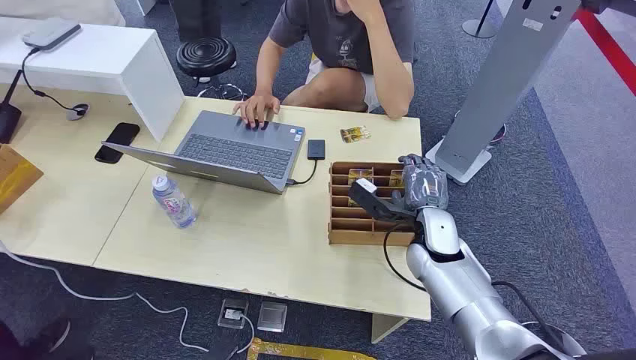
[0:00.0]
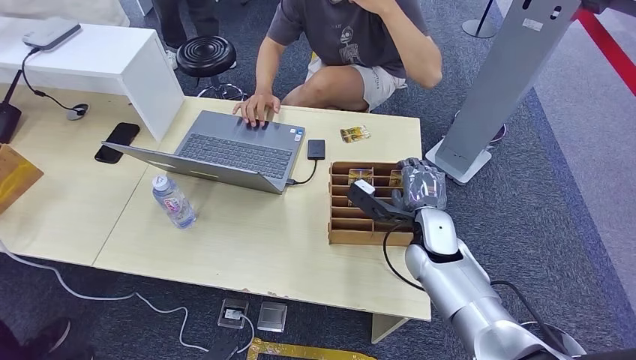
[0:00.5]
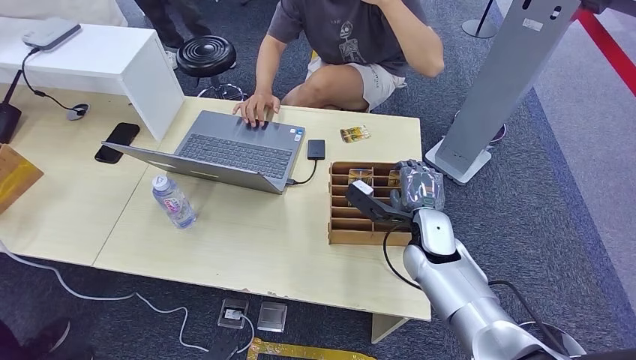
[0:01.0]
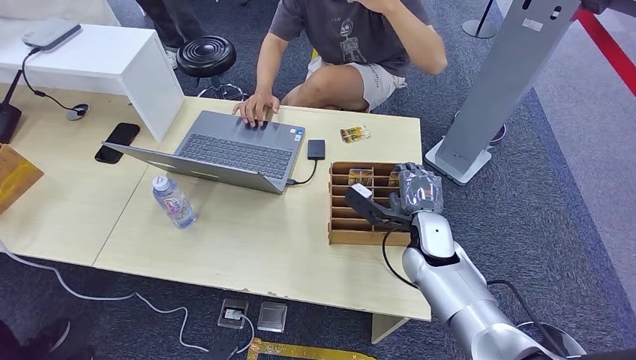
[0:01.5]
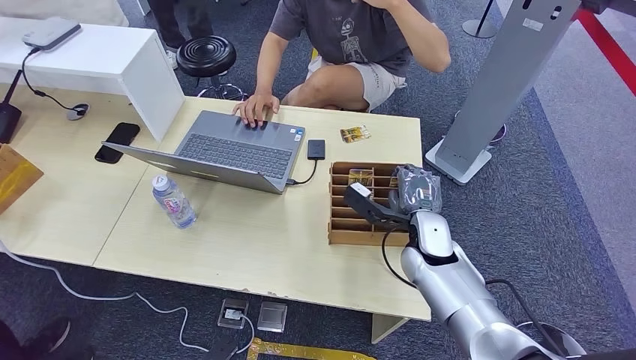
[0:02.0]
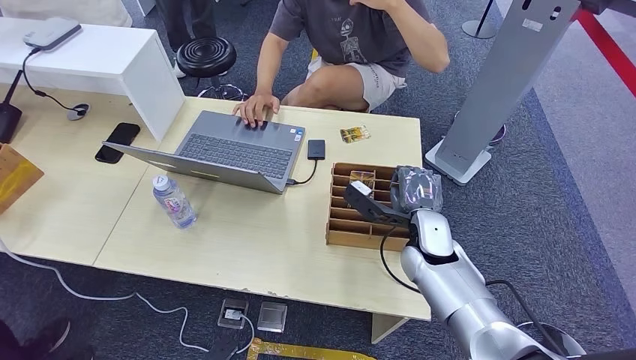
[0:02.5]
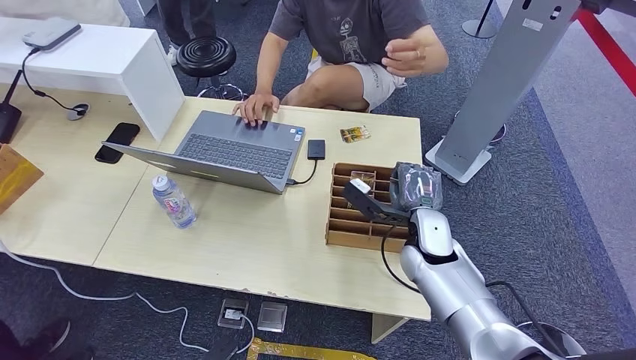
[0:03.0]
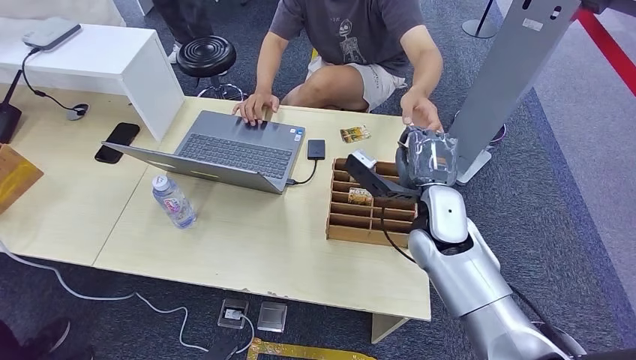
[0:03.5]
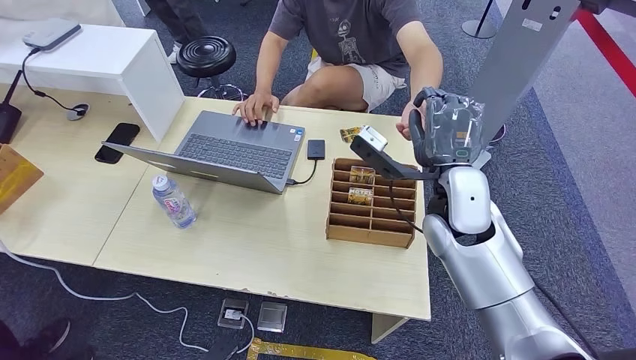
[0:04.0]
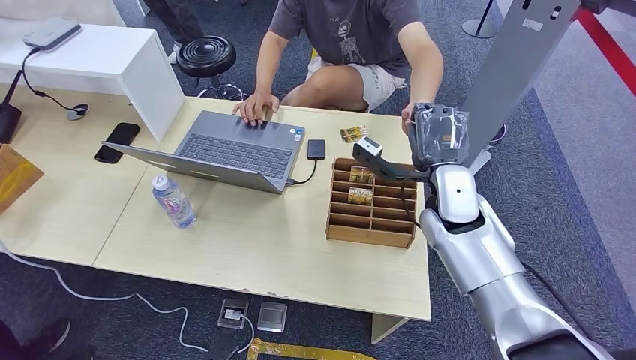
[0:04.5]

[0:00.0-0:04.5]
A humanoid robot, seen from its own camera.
Step, 0:00.0 to 0:03.0: Pick up the key card from the card box.
Step, 0:03.5 to 0:04.5: Hand the key card to the target.
0:02.0 to 0:04.5: The right hand moves upward, some 10 cm.
